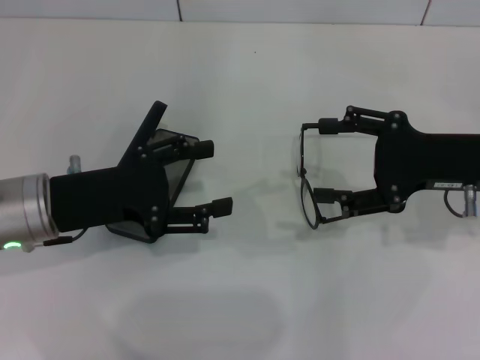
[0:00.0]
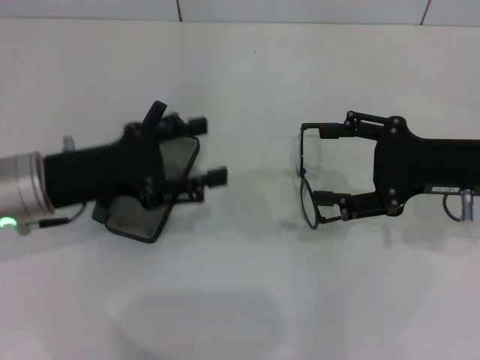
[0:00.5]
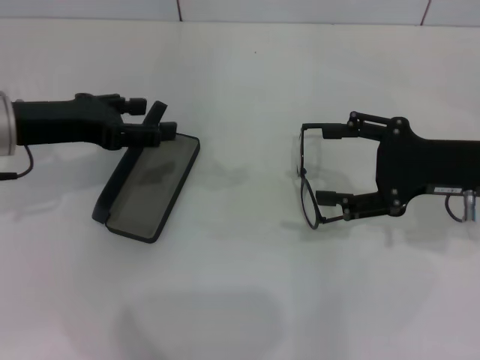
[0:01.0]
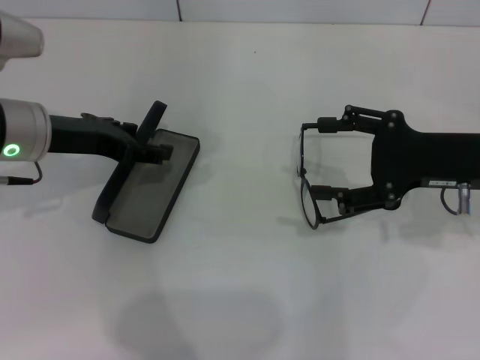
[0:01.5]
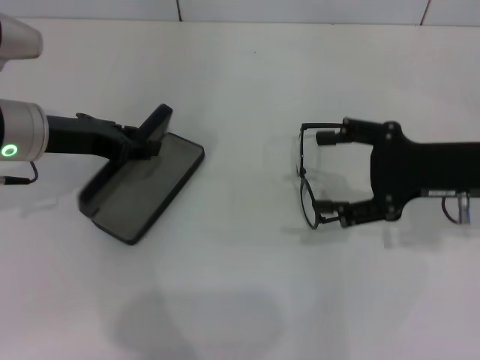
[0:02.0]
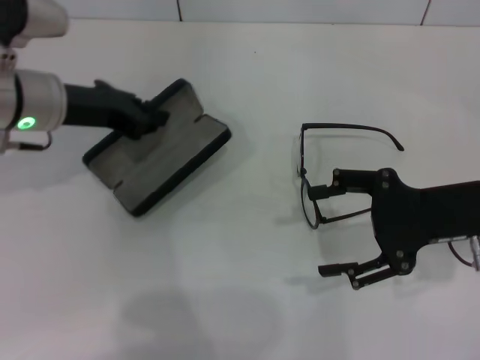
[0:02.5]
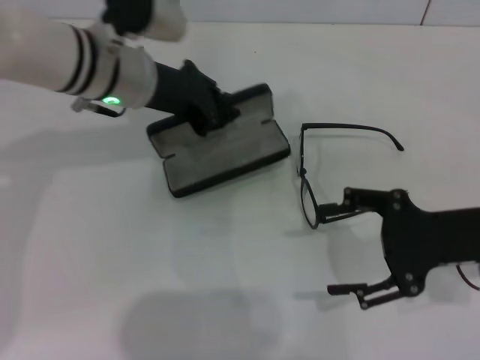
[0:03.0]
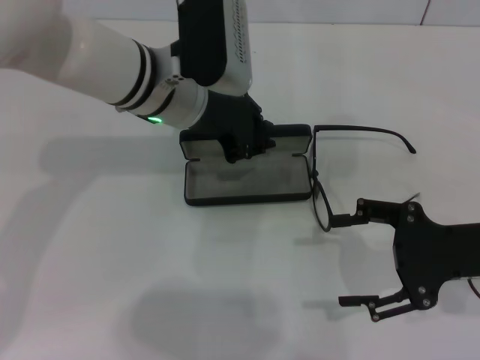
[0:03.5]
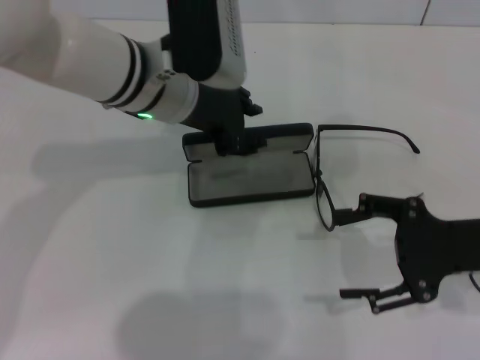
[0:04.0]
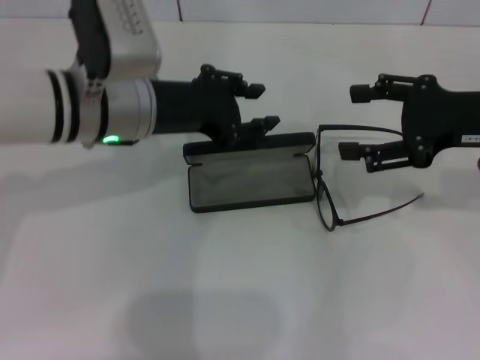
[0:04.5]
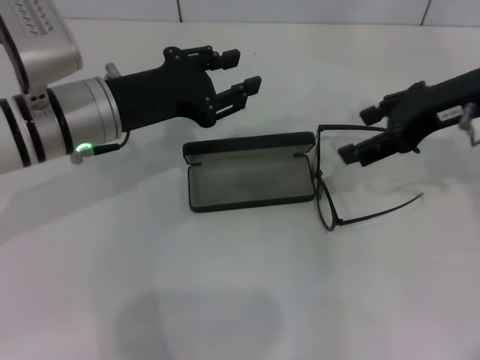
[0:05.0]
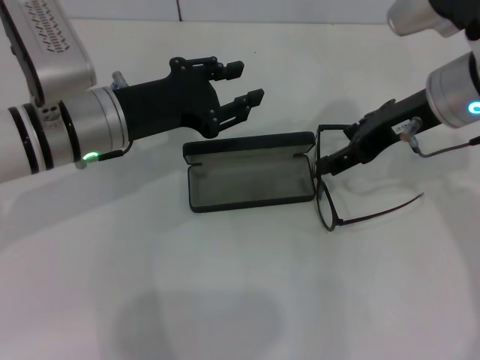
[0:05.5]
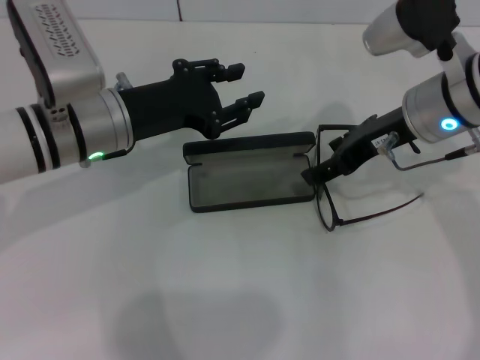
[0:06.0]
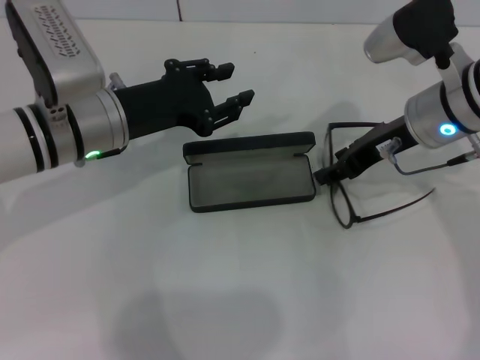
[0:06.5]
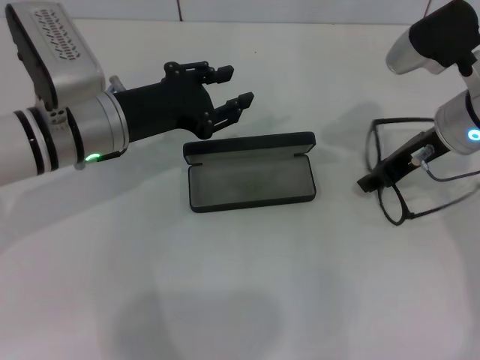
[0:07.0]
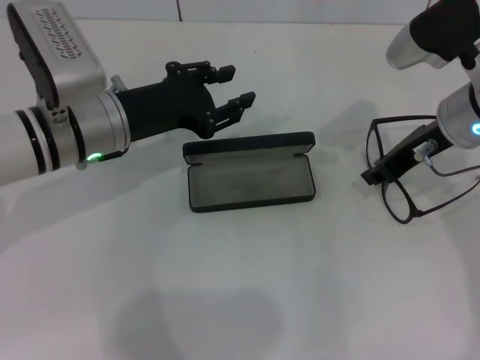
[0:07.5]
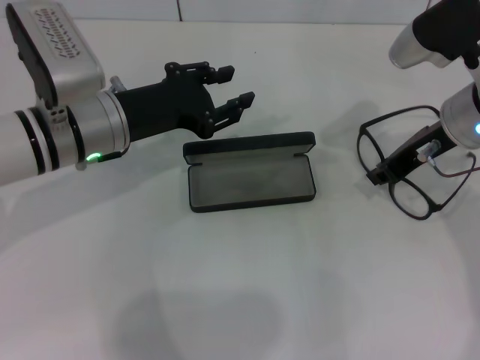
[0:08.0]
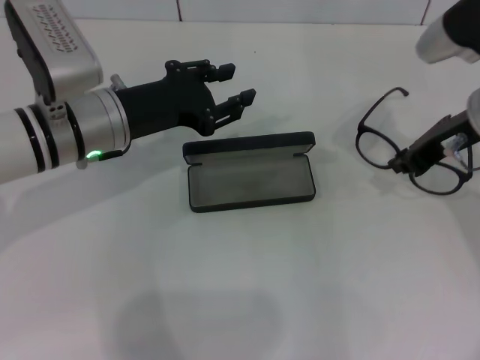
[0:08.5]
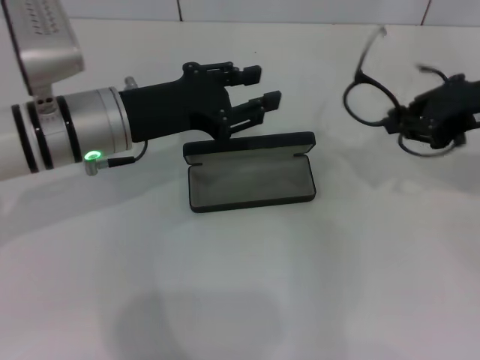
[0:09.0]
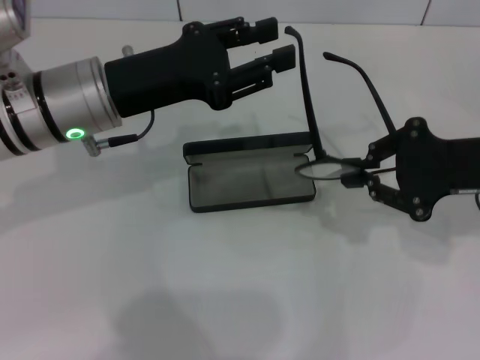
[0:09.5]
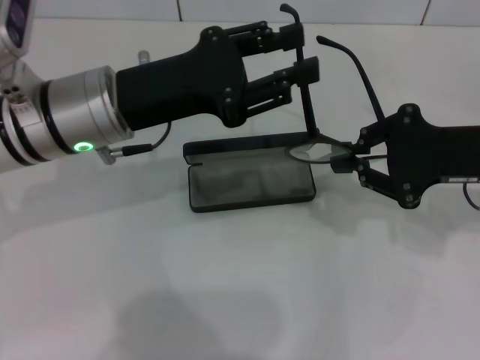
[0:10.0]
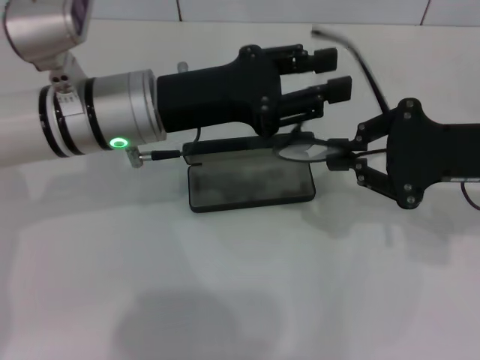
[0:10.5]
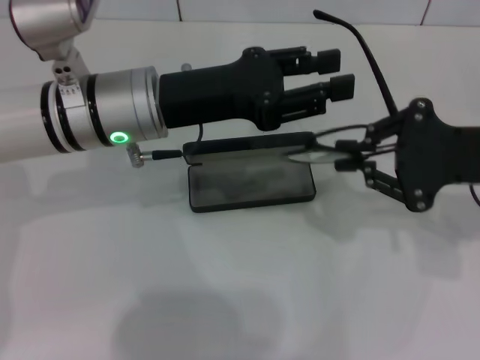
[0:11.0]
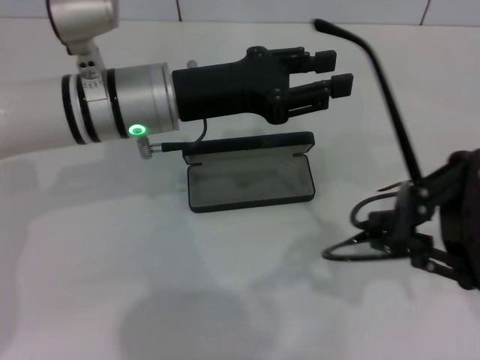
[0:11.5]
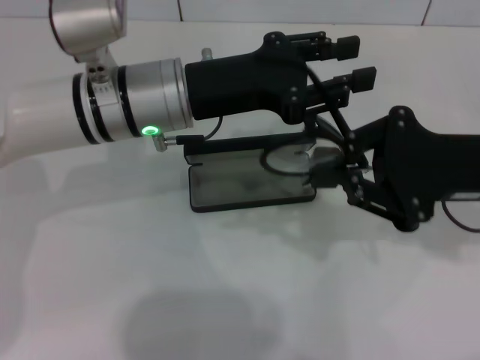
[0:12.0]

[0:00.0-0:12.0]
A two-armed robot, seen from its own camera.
Step, 0:00.0 to 0:02.0: Grab the glasses case with your left hand.
Step, 0:02.5 to 0:03.5: Place the glasses case in the center of the table with your left hand.
Step, 0:04.0 to 0:08.0: Grab the eyeglass frame with your right hand.
0:00.0 to 0:02.0: The left gripper shifts approximately 5 cm forward.
0:02.0 to 0:04.0: The right gripper shifts approximately 5 cm backward, while the left gripper travels to the right by some 15 cm, and closes.
0:04.0 to 0:06.0: The right gripper goes roughly 15 cm forward, to the left and upward. Meanwhile the left gripper goes approximately 5 cm to the left.
0:06.0 to 0:08.0: The right gripper closes up.
0:08.0 to 0:10.0: The right gripper heads backward and to the right, covering approximately 10 cm.
0:10.0 to 0:12.0: The left gripper moves approximately 5 cm.

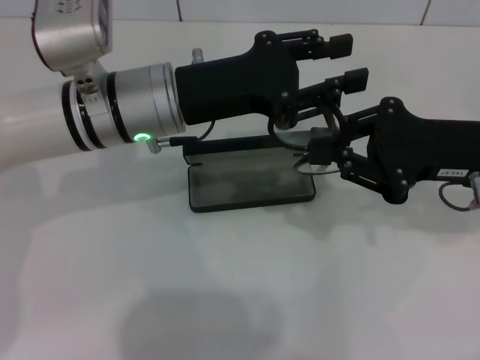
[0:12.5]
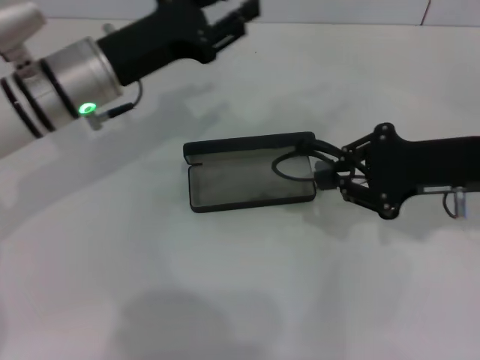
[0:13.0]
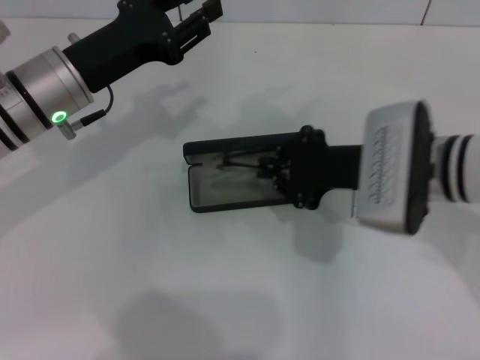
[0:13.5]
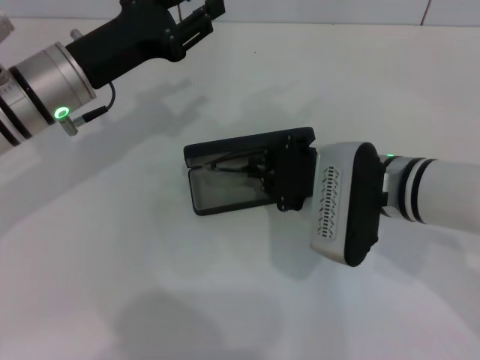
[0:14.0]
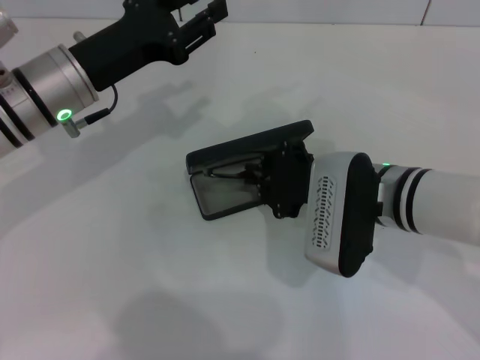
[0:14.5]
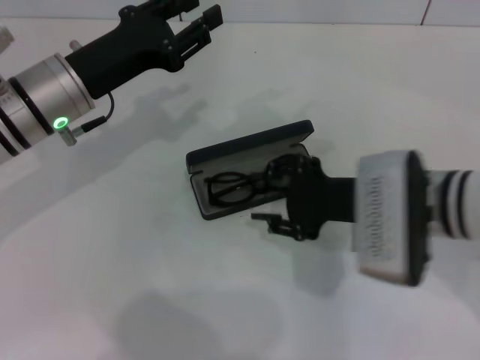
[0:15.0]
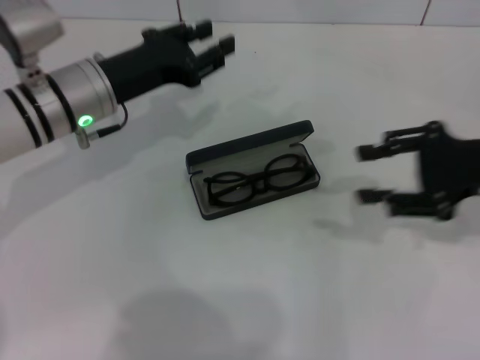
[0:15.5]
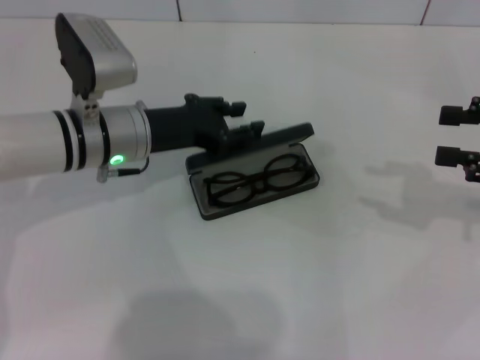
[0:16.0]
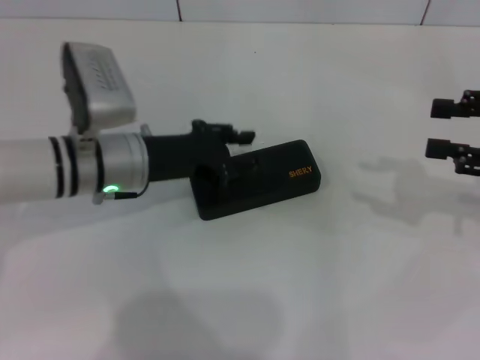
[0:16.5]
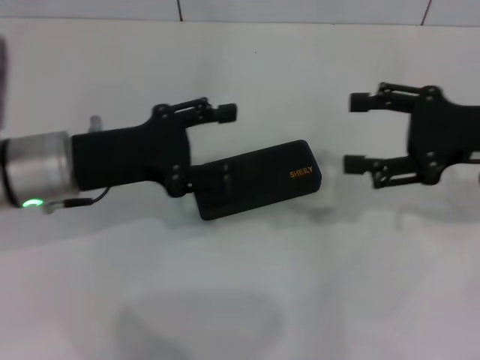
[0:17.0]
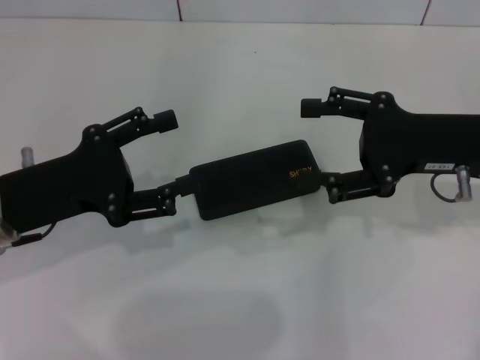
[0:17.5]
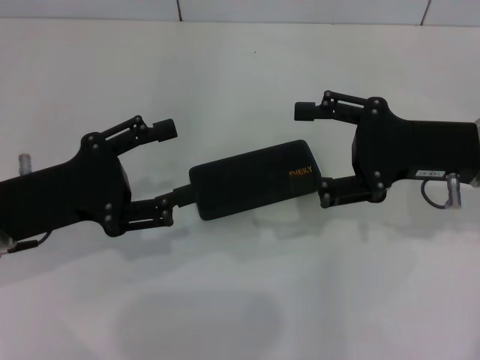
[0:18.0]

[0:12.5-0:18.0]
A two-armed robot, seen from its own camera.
Step, 0:12.5 to 0:14.5: Put the glasses into the case with your right hand.
Step, 0:15.0 to 0:16.0: Close the glasses case with your left hand.
0:12.5 to 0:14.5: The right gripper moves to the left and downward, about 15 cm. The left gripper moves to the left, about 10 cm.
0:14.5 to 0:16.0: The left gripper ends up some 5 cm from where it was; the right gripper goes about 25 cm to the right, and opens up.
0:16.0 to 0:18.0: The right gripper is displaced to the left by about 10 cm, and opens up. The left gripper heads backward and to the left, covering some 15 cm, and opens up.
